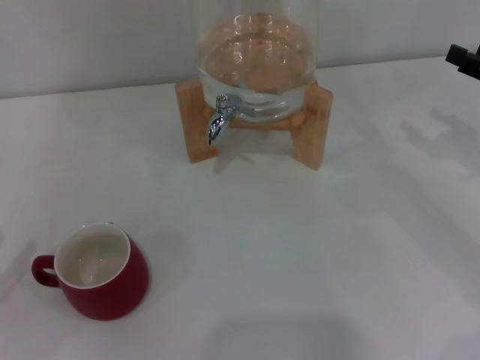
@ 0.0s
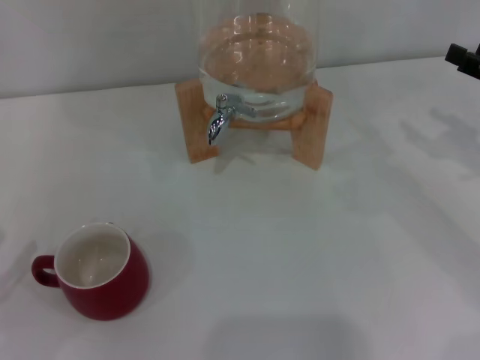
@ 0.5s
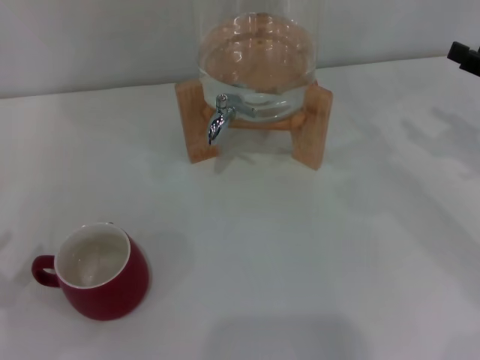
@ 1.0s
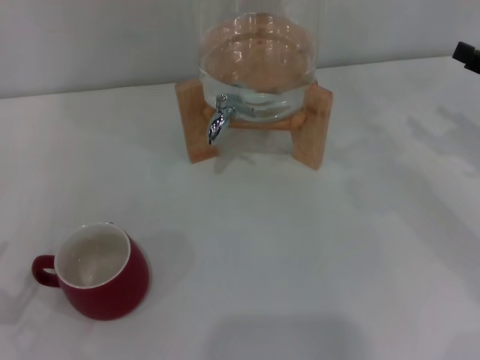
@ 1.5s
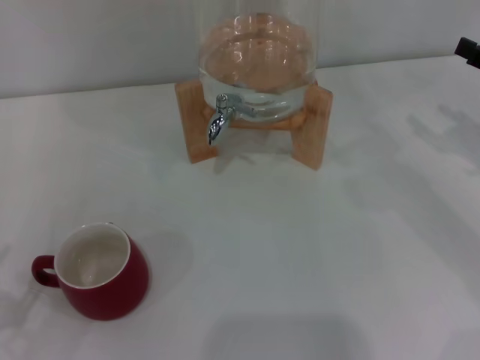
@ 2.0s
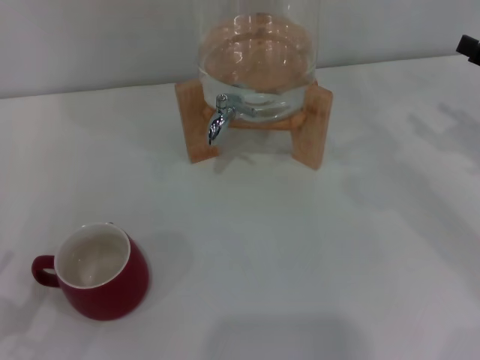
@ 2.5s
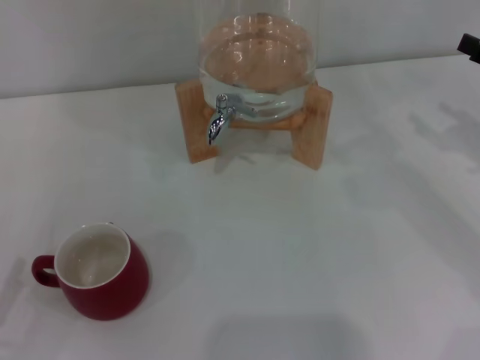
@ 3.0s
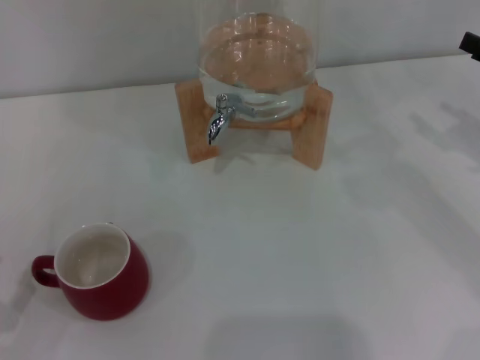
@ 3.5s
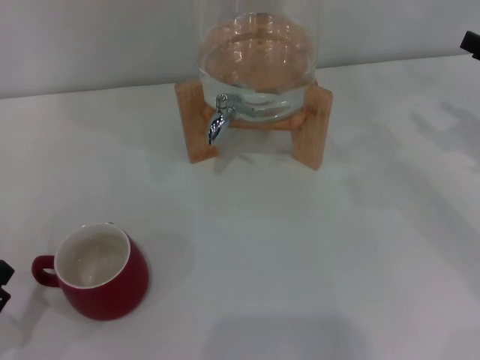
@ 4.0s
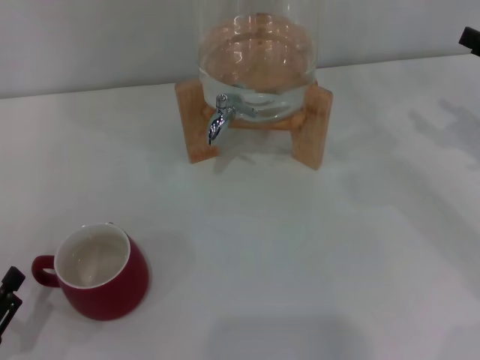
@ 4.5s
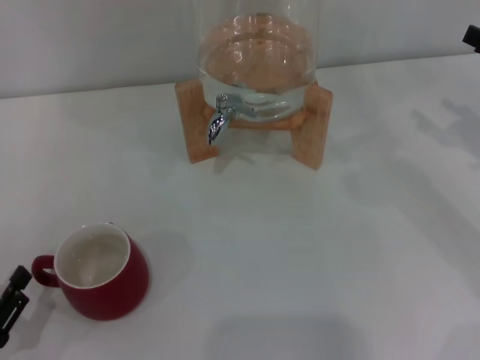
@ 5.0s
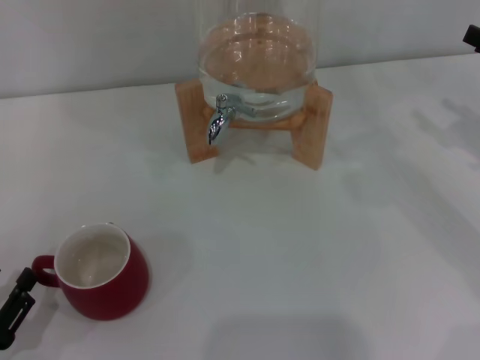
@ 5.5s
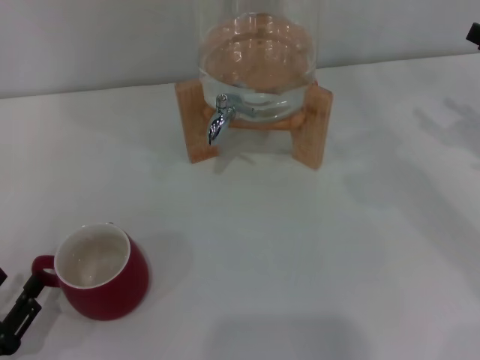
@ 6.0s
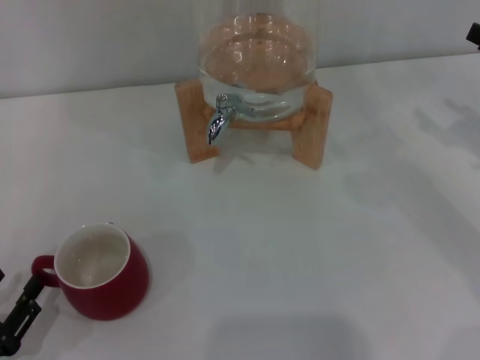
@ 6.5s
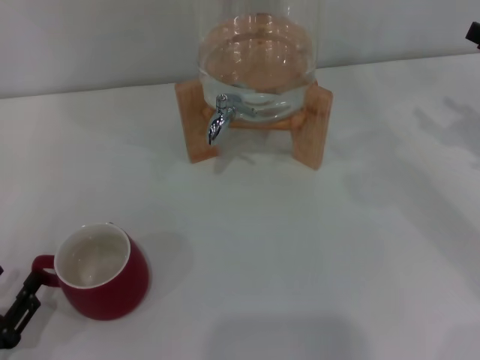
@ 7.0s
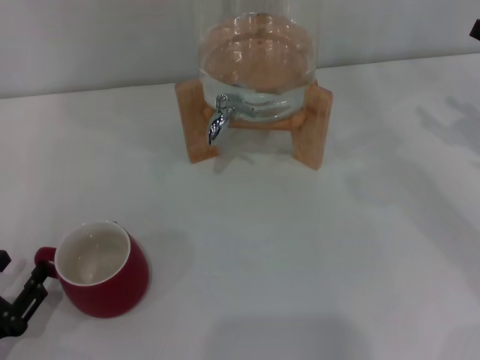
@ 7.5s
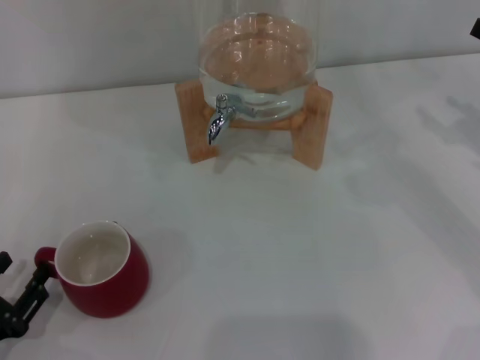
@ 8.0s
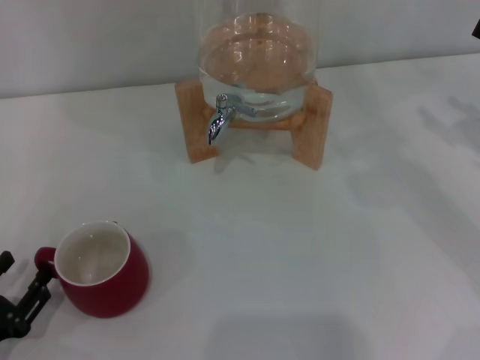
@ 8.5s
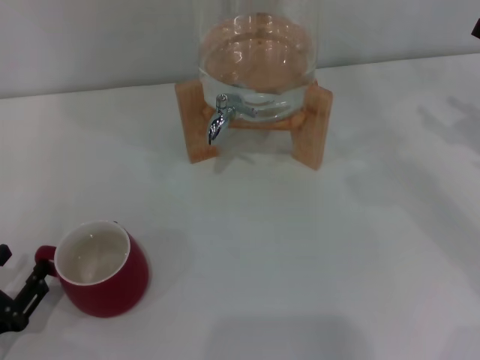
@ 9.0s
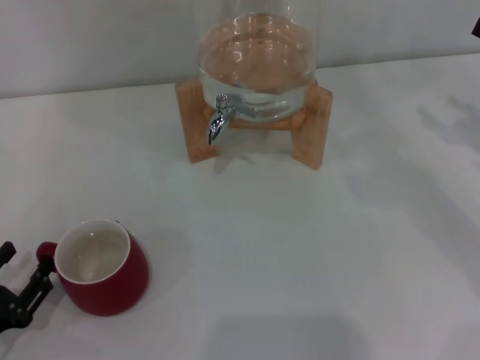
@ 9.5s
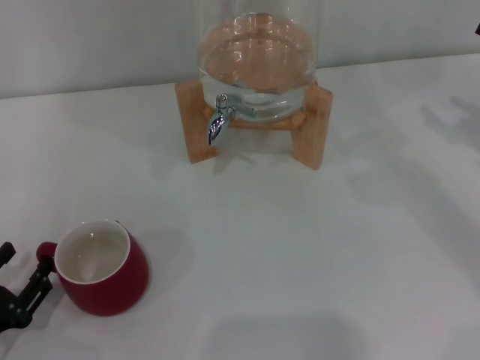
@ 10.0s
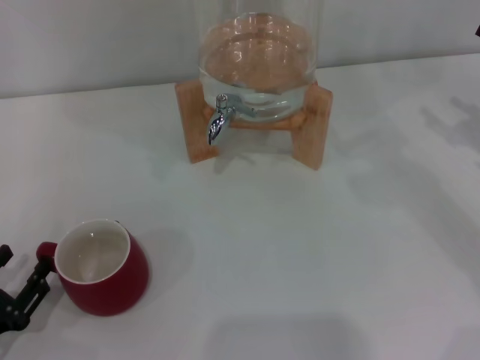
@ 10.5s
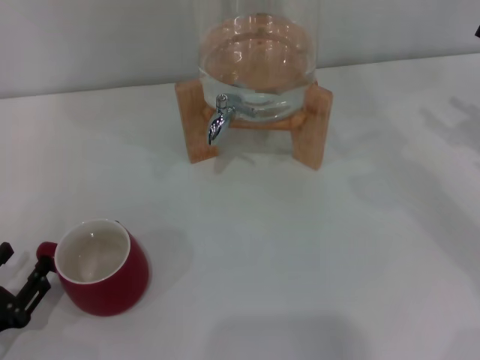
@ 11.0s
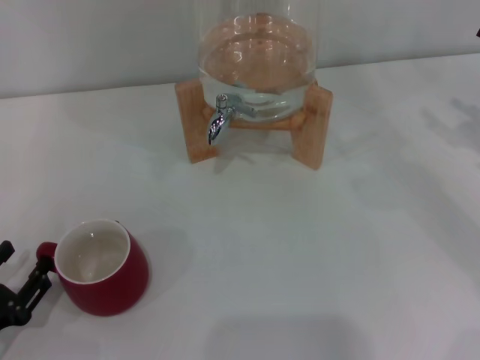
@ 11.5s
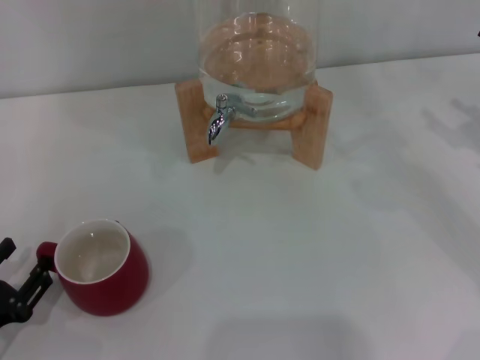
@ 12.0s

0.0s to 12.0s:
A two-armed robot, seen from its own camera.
Task of the whole recording: the left gripper pick up the red cup and place it horizontally under the faucet, the right gripper turn on the faucet to fill the cup, and then turn off the faucet.
4.0s to 8.0s: The grippers make only small movements.
8.0s to 10.0s: Both grippers stay about where they are.
10.0s to 12.0s: The two grippers keep their place.

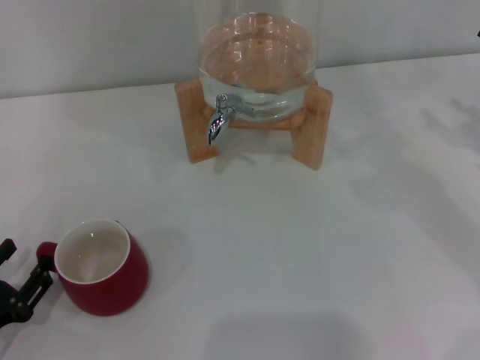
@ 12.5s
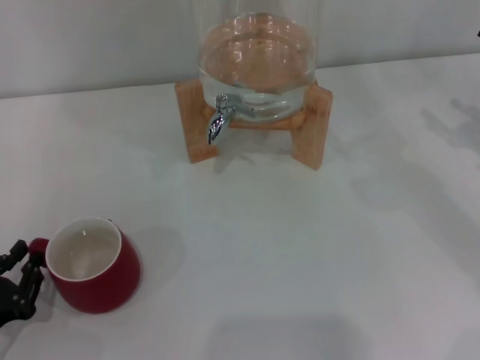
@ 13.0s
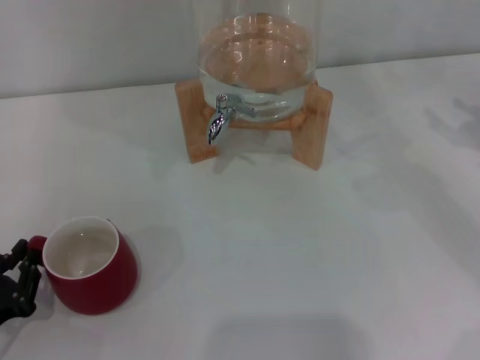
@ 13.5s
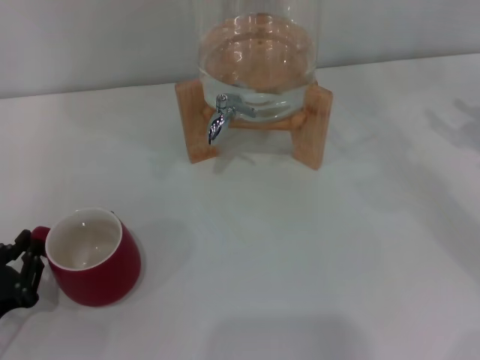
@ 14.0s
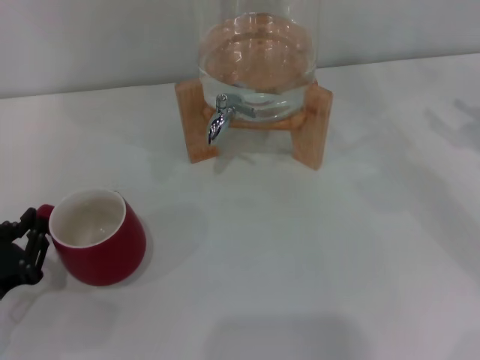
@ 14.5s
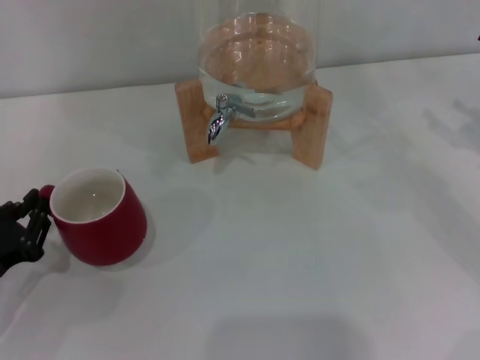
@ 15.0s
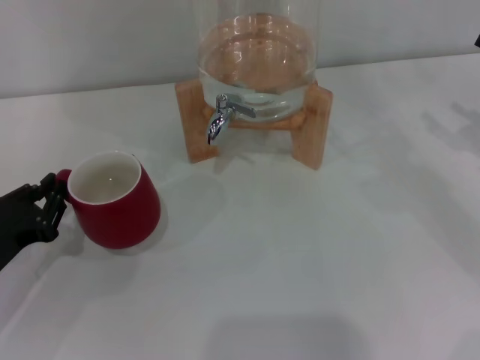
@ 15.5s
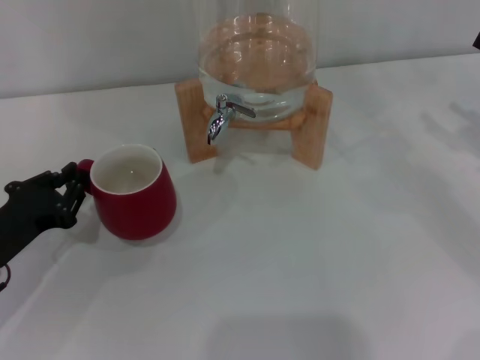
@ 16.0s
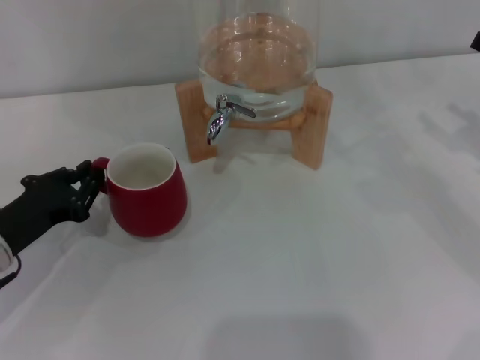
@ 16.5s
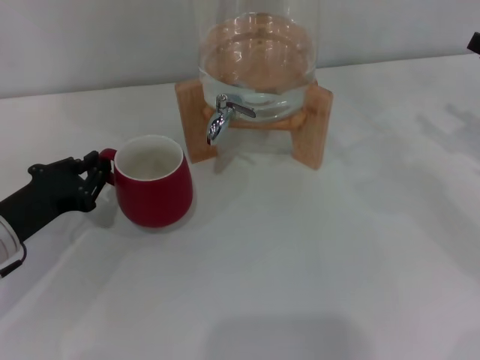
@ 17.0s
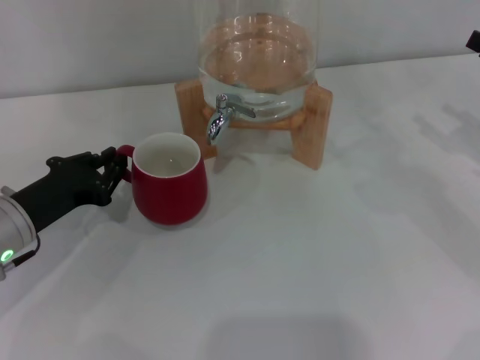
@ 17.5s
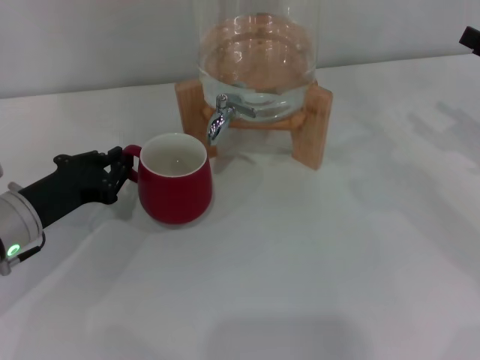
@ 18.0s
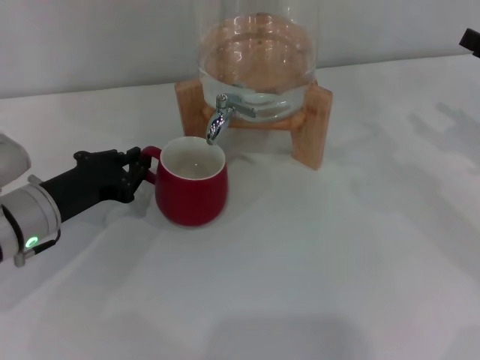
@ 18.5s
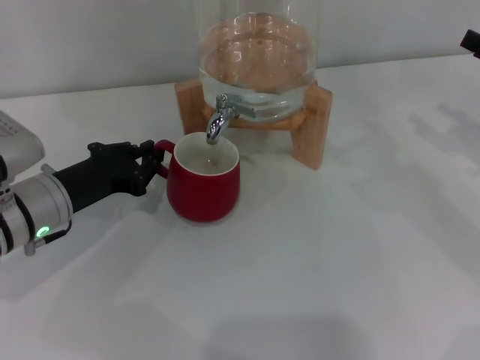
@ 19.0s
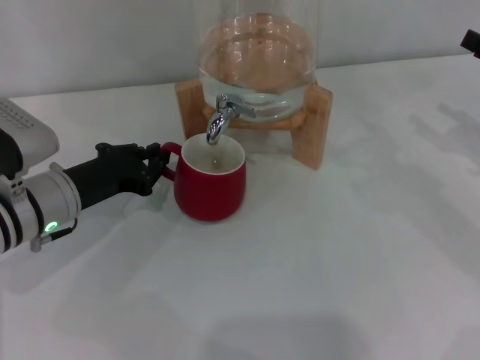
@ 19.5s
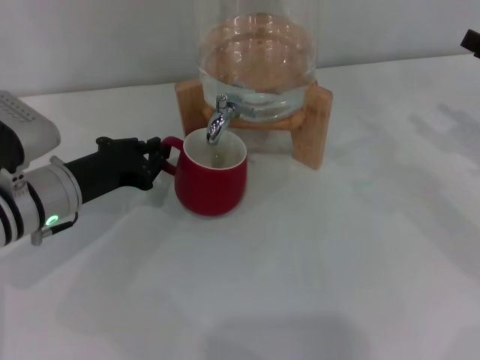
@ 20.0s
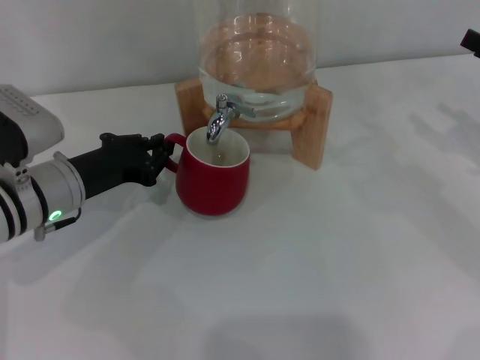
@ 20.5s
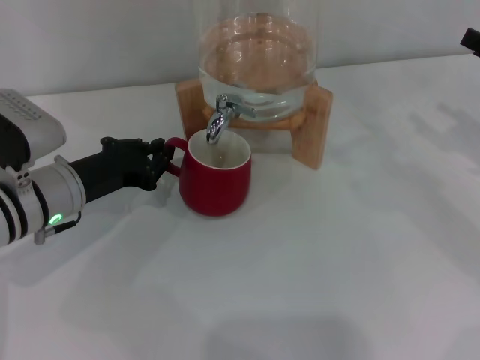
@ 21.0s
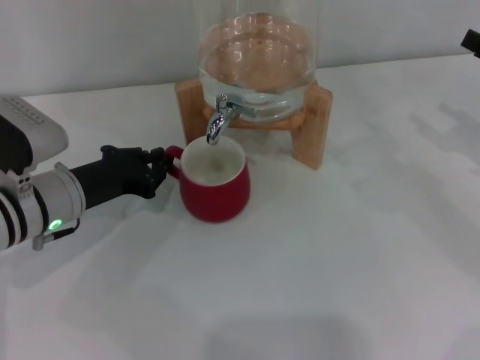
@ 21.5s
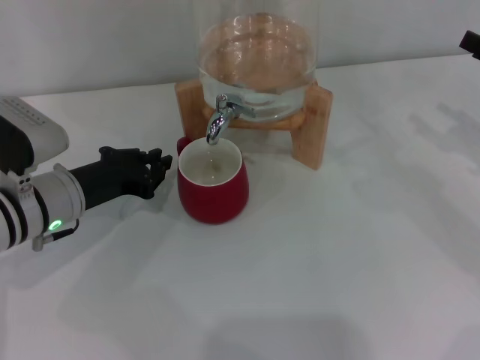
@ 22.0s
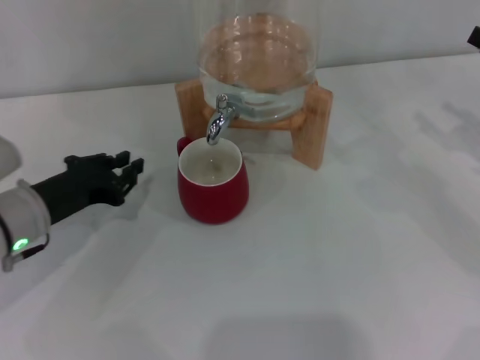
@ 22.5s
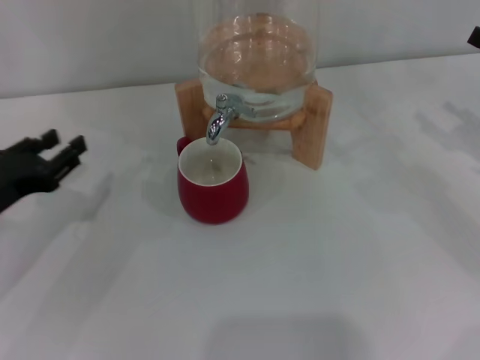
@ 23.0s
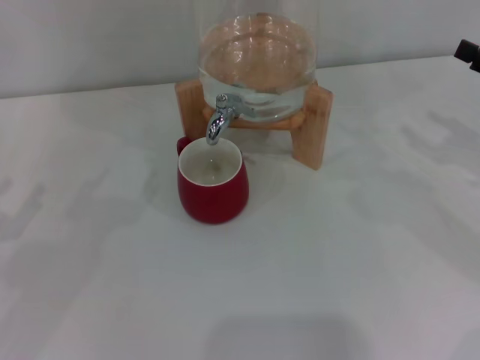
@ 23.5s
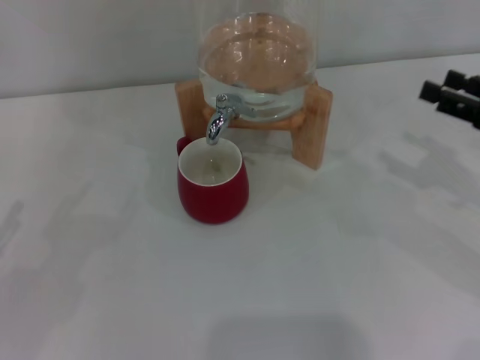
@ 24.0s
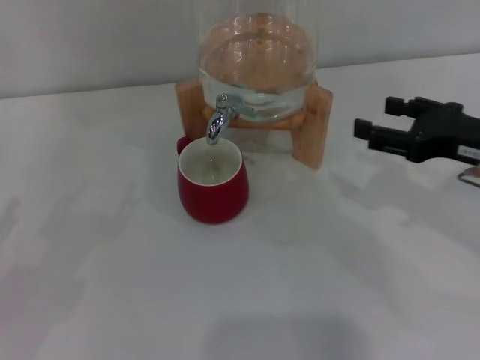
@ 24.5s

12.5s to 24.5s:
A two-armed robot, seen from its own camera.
Task of the whole recording: the left gripper pick up the red cup and place it horizontally under the faucet, the right gripper turn on the faucet to fill the cup, and then turn off the faucet.
Step, 12.5s to 22.0s: Move the cup beneath the water dispenser nozzle with the left gripper.
12.5s to 14.5s: The left gripper closes.
14.5s to 16.5s: The left gripper moves forward, some 10 cm.
16.5s to 18.5s: The left gripper moves about 5 cm.
18.5s to 22.5s: The grippers stay close to where they were, moving slightly.
22.5s to 24.5s: The left gripper travels to the left and backward by about 20 cm, and opens; the right gripper heads to the left, covering some 10 cm.

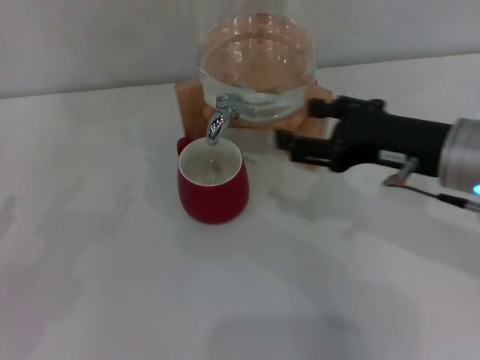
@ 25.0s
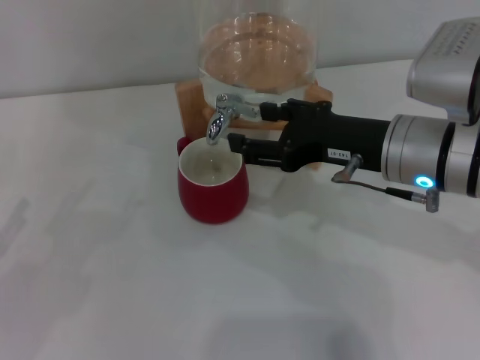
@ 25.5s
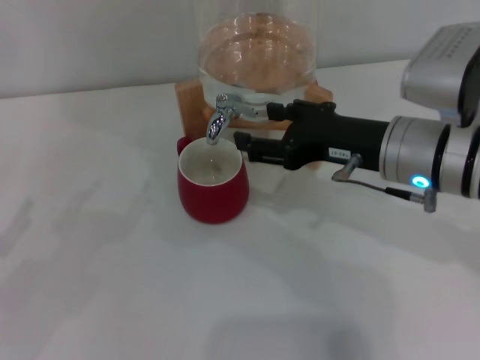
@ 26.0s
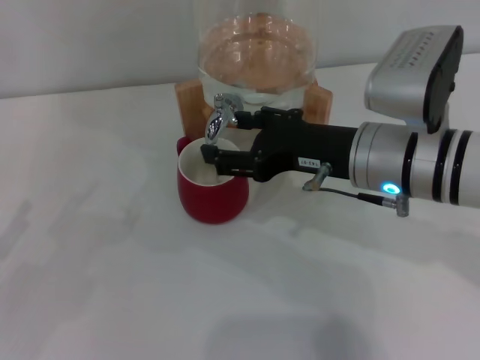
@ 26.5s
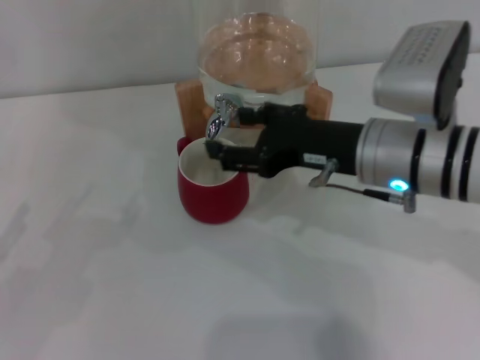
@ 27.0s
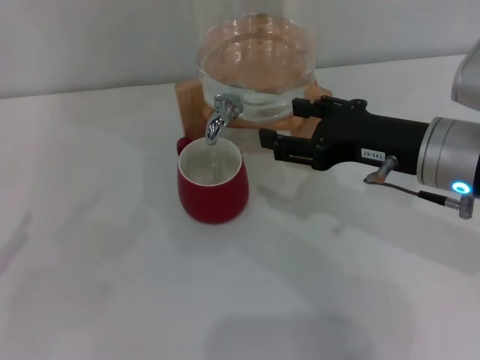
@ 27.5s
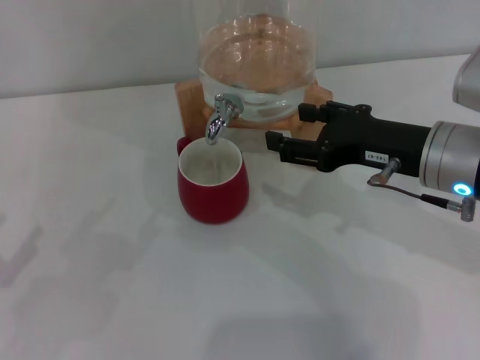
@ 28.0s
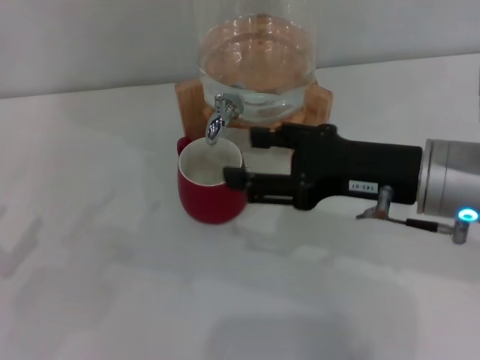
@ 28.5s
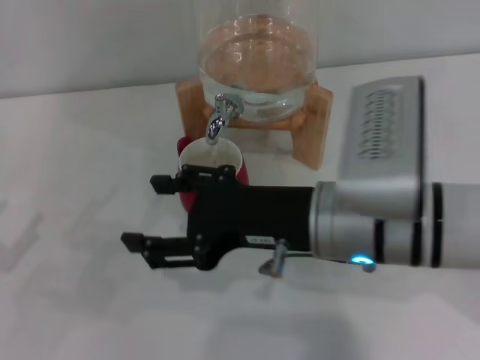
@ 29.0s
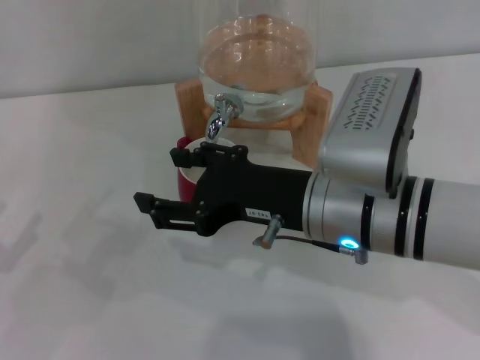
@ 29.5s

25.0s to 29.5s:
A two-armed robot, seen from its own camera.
Task of the whole recording: the left gripper pick up the red cup and place it horizontally under the faucet, the right gripper turn on the faucet to fill the cup, and then turn off the faucet.
25.0s to 27.0s: The right gripper is displaced to the left by approximately 5 cm.
27.0s to 29.5s: The right gripper shifts about 5 cm to the left.
